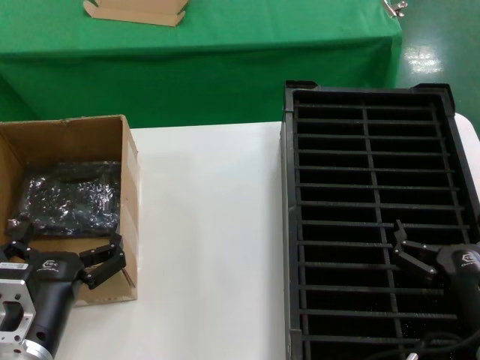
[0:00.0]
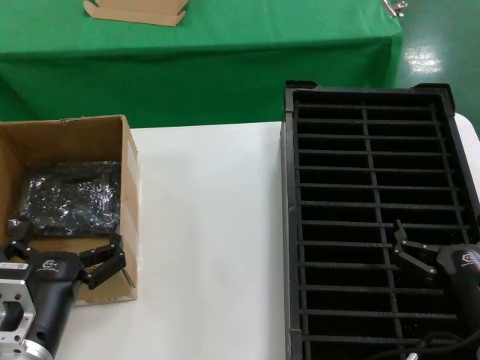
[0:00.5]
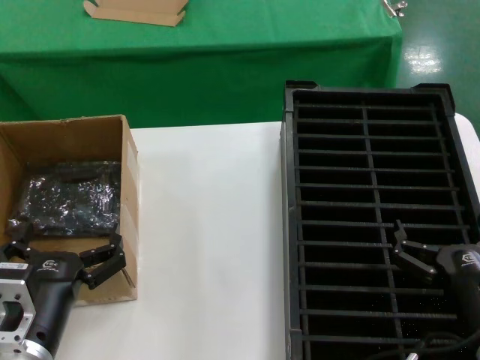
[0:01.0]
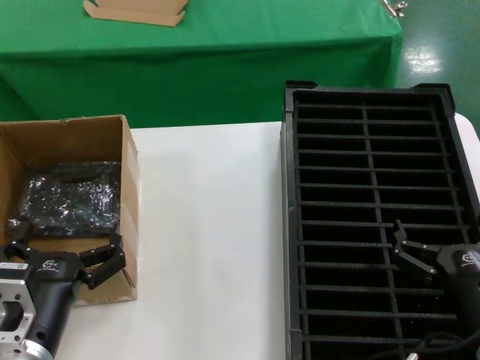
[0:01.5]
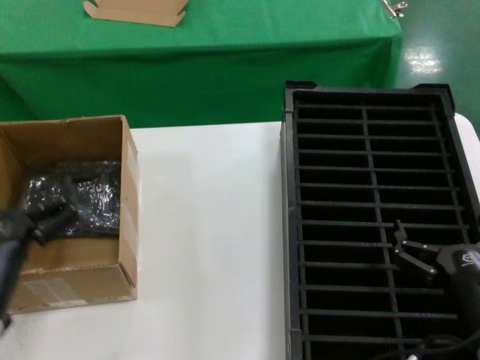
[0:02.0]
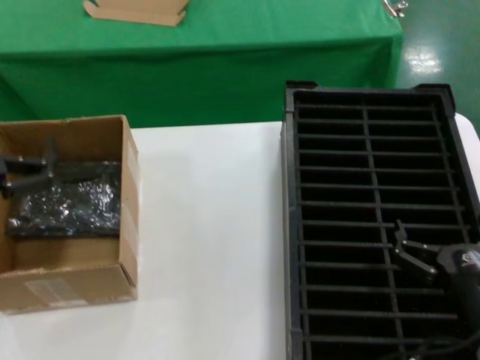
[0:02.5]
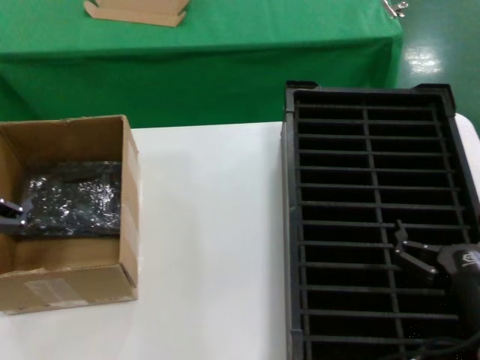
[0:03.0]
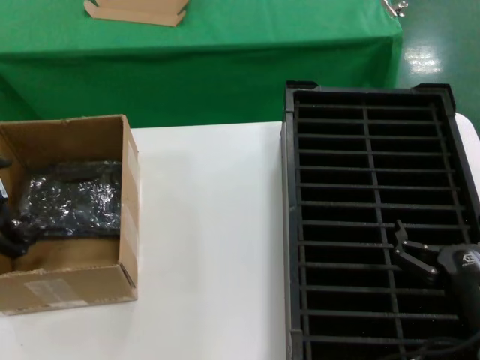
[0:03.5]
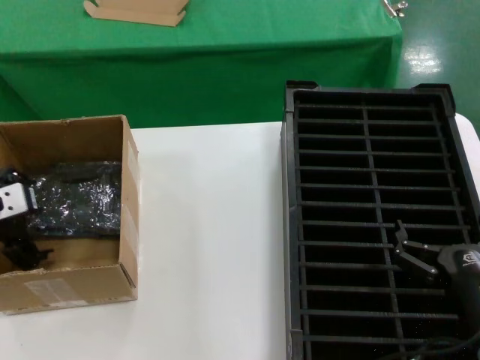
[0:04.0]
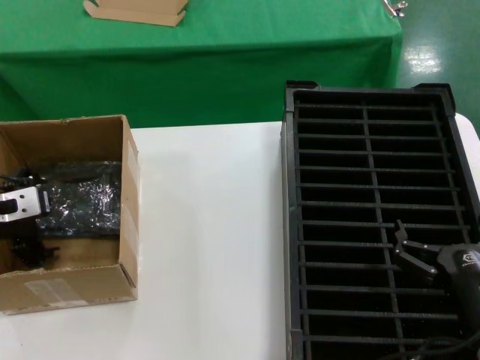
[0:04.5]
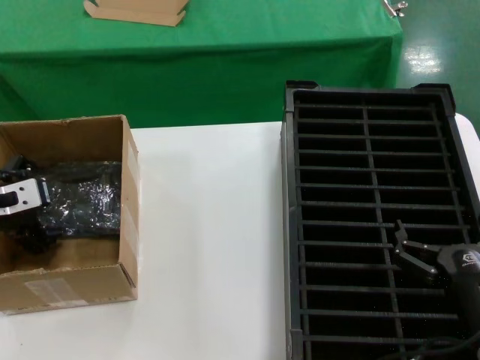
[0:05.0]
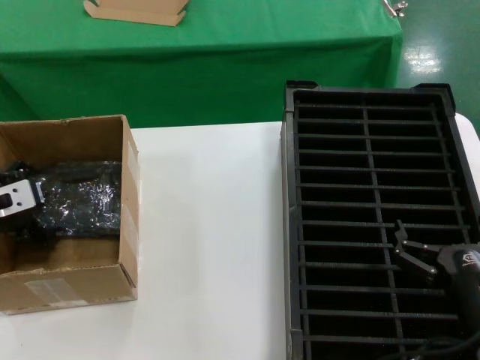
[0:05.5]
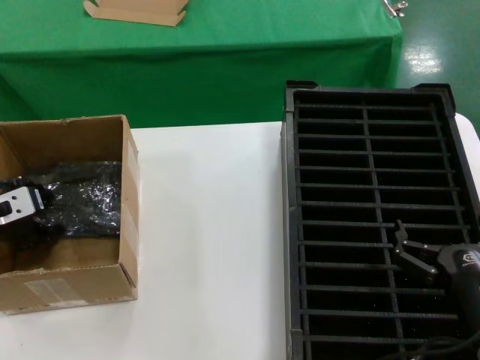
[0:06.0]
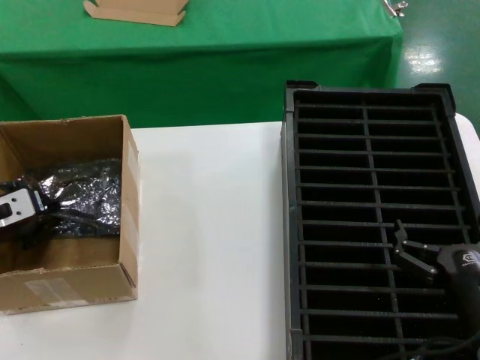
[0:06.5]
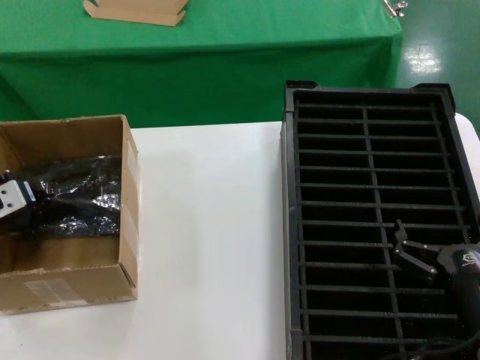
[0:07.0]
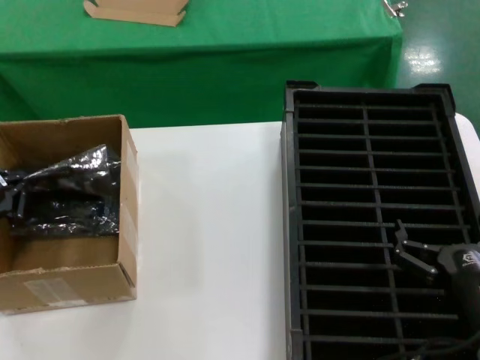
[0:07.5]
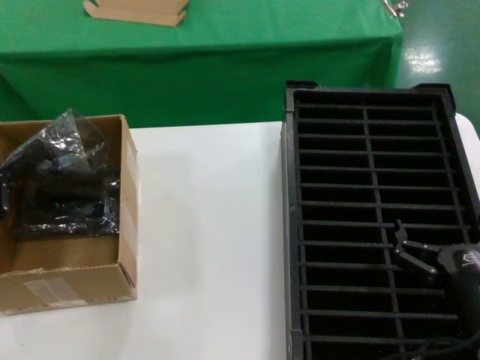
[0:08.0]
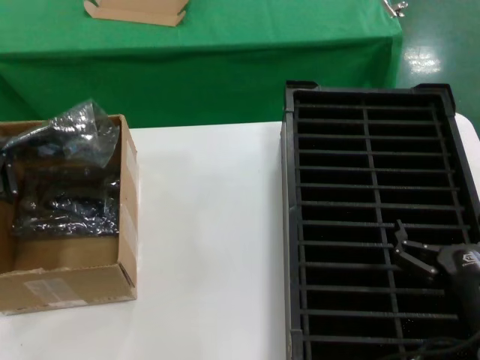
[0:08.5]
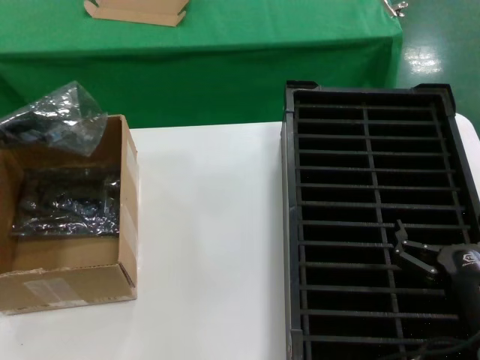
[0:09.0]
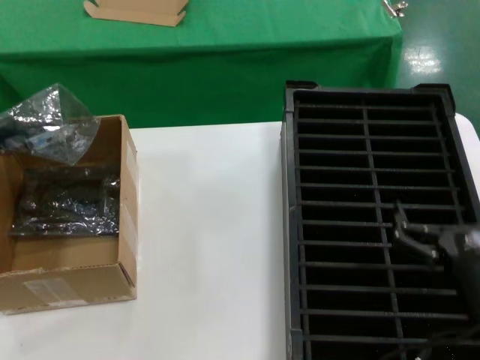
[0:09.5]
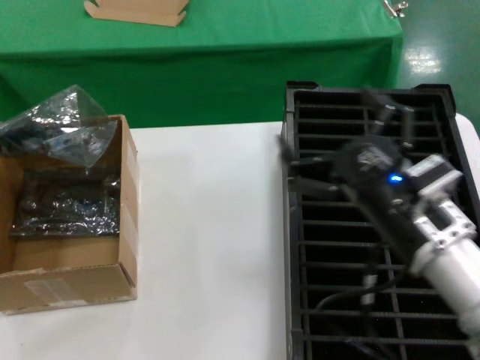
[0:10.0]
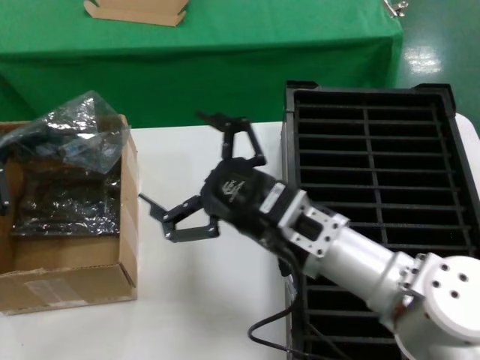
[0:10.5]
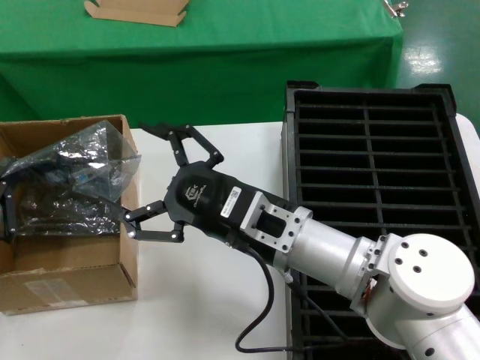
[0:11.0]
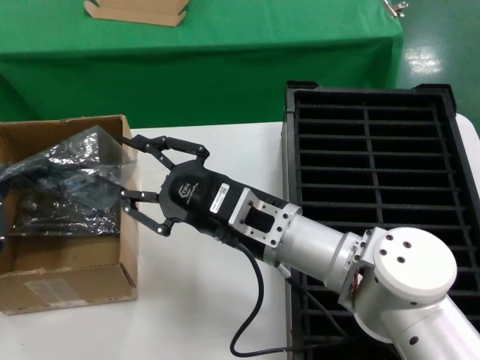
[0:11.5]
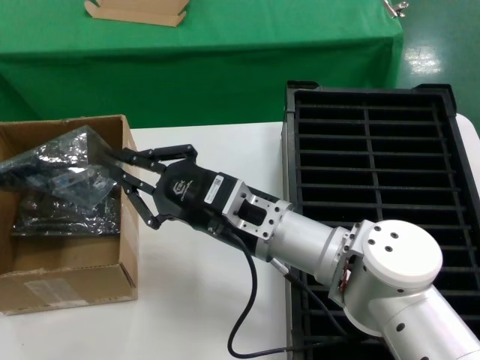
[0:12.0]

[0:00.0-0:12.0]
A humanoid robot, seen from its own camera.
Task of the whole recording: take out graphics card from box remove packaging put into black container.
Step, 0:00.0 to 0:06.5: Grasp the bag.
Step, 0:07.0 to 0:10.0: Lift the bag.
0:00.0 to 0:02.0: The left hand changes place by roughly 5 cm.
0:02.0 to 0:04.0: The left hand travels forward, to the left and upward by about 25 cm.
0:04.0 to 0:06.0: There are only small adjustments of the hands.
0:06.0 to 0:08.0: The left hand travels backward by roughly 10 cm.
0:08.0 to 0:10.0: The right hand is displaced upward, to the left and forward by approximately 15 cm. Meanwhile the left hand goes roughly 10 cm backward.
0:10.0 to 0:12.0: The right hand goes about 15 cm to the left and forward.

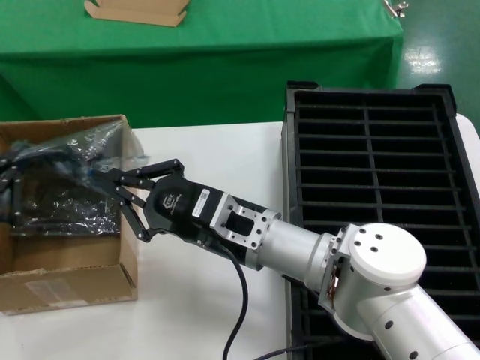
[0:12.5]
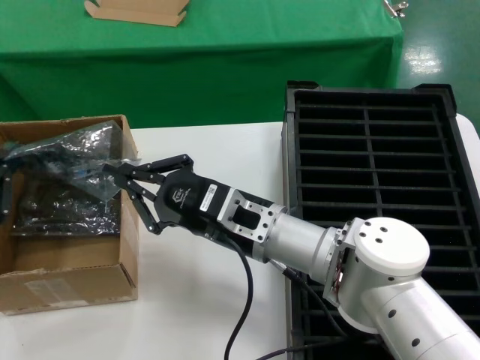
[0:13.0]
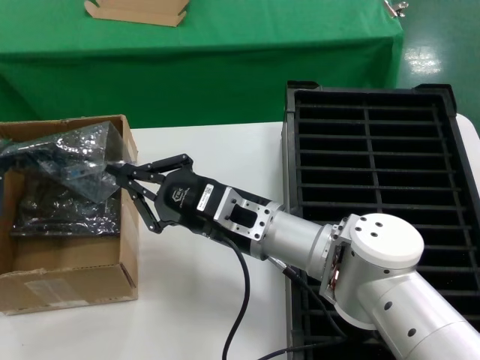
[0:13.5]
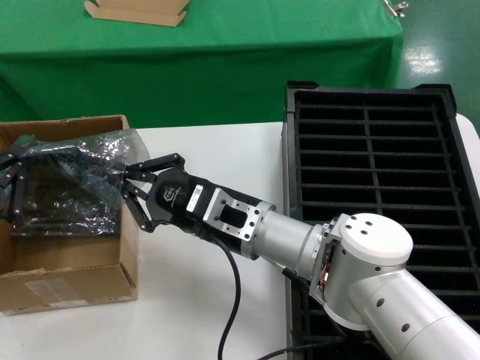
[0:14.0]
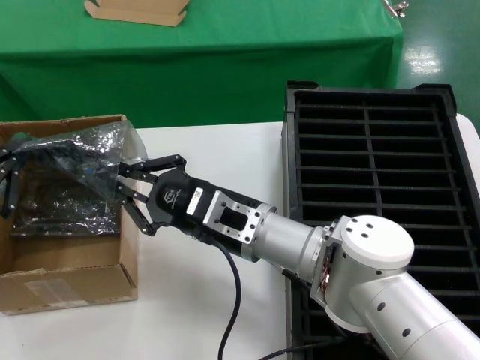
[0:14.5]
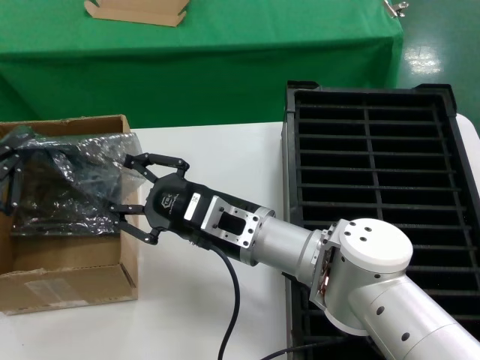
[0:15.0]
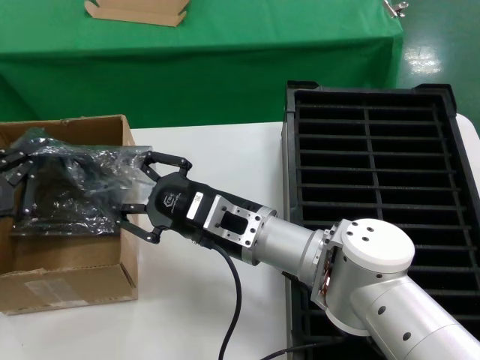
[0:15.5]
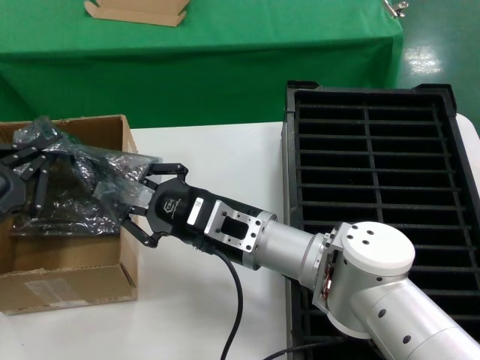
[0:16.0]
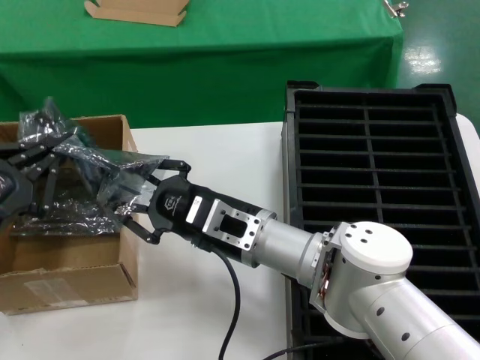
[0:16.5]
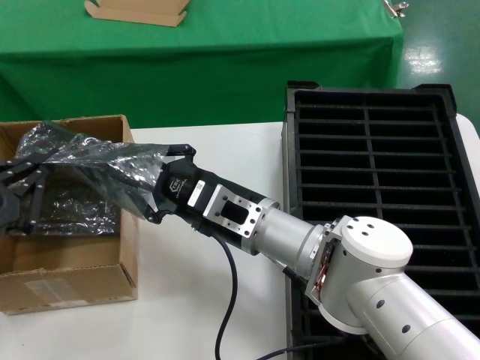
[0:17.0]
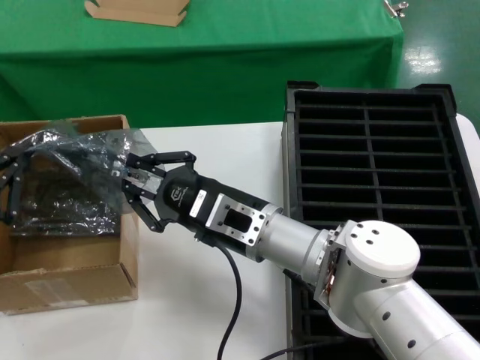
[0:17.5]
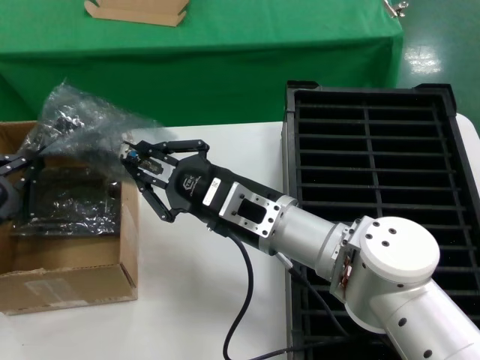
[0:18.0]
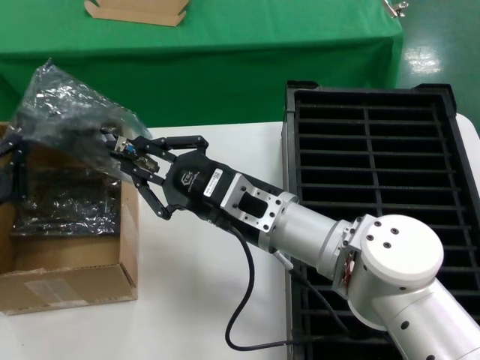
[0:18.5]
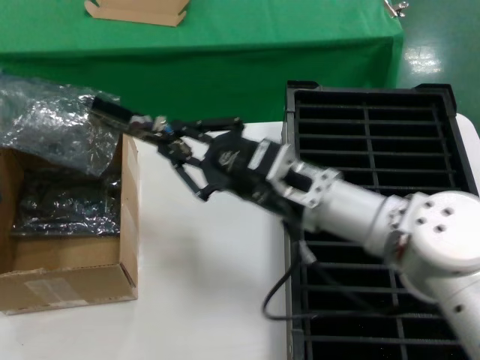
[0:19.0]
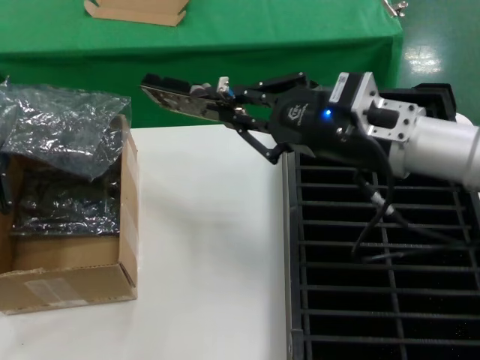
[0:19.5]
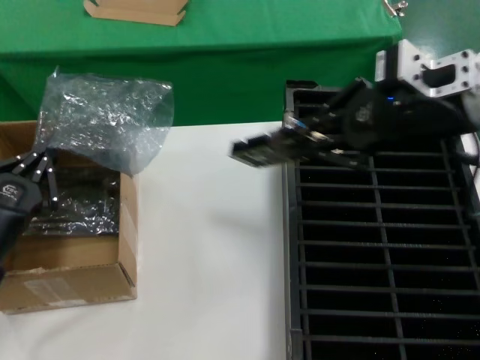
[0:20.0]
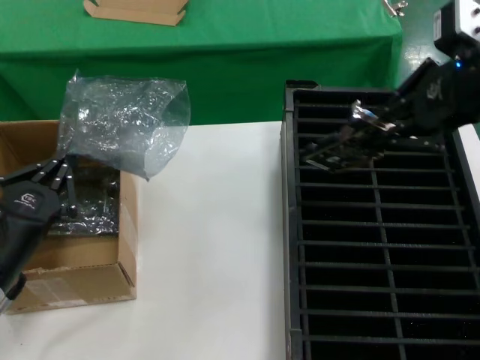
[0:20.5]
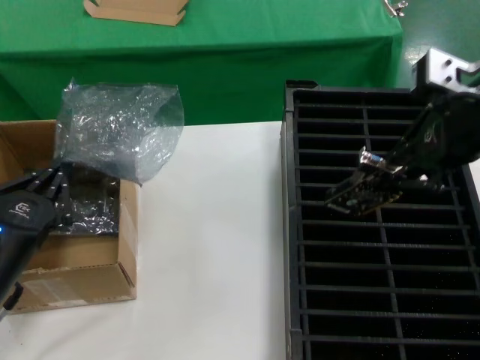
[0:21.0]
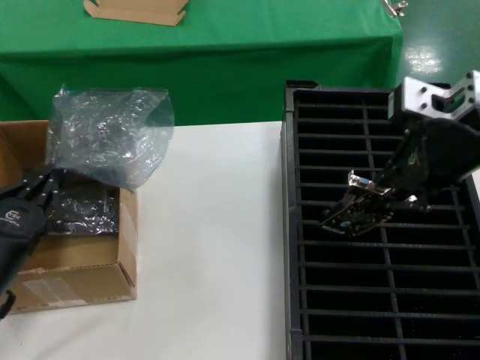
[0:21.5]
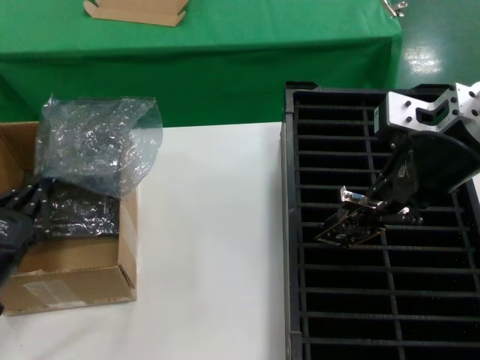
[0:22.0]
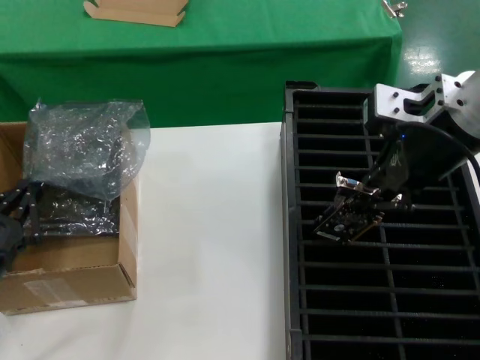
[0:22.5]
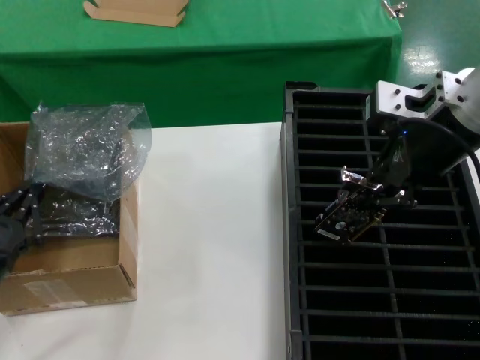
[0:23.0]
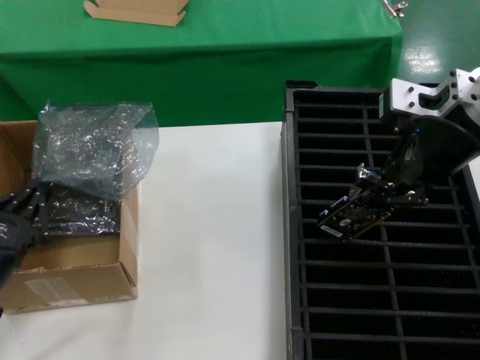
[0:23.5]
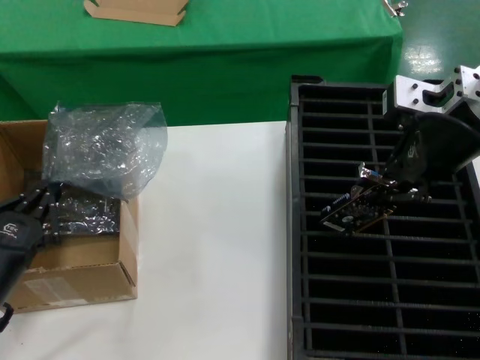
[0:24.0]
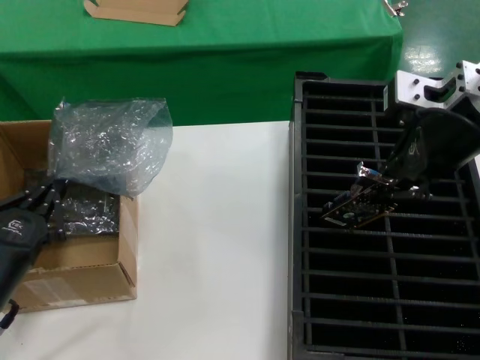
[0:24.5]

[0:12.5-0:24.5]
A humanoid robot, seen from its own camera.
Task of the whole recording: take out graphics card from box remove packaging put into black container.
Step, 0:12.5 to 0:19.0: Take out the hard disk of the bag.
0:12.5 to 0:16.5: The hands move only a little.
0:16.5 to 0:18.5: The left hand shifts by roughly 5 cm.
0:18.5 to 0:20.5: The left hand travels downward by approximately 10 cm. The right hand goes some 35 cm upward and to the right.
0:20.5 to 0:22.5: The left hand shifts by approximately 5 cm. The right hand moves downward and to the left, about 10 cm.
0:22.5 to 0:24.5: There are only small adjustments of the hands.

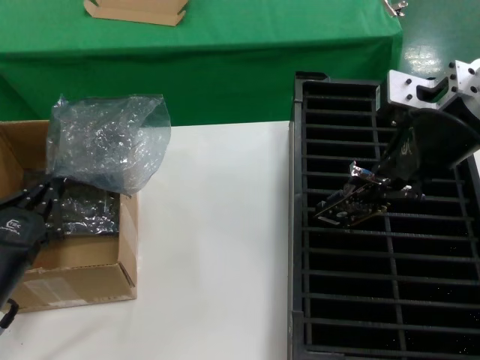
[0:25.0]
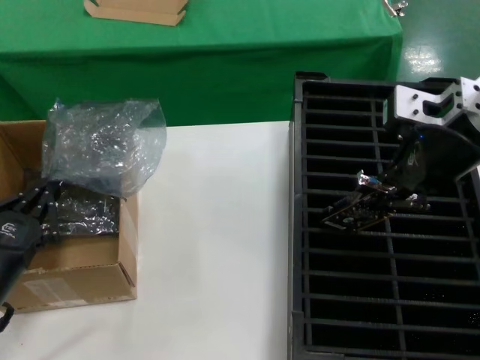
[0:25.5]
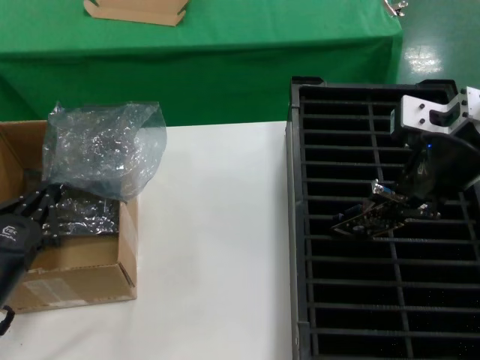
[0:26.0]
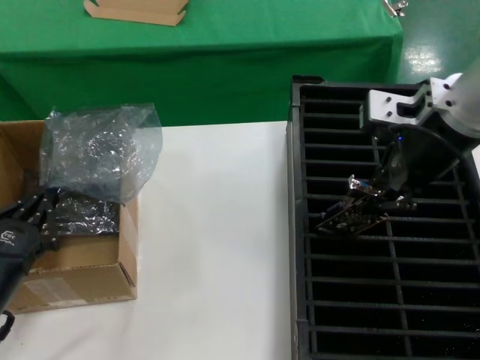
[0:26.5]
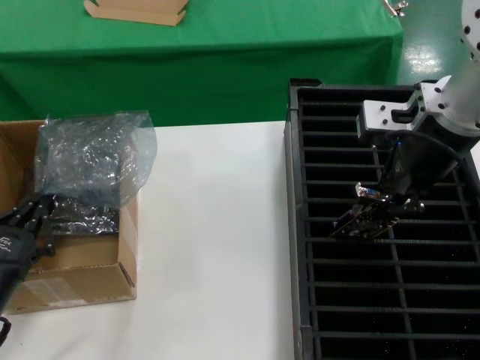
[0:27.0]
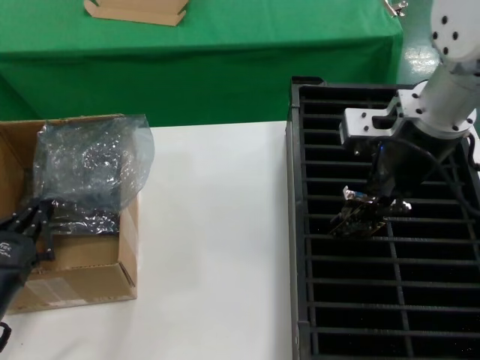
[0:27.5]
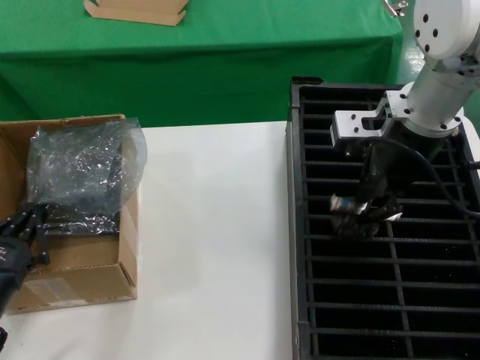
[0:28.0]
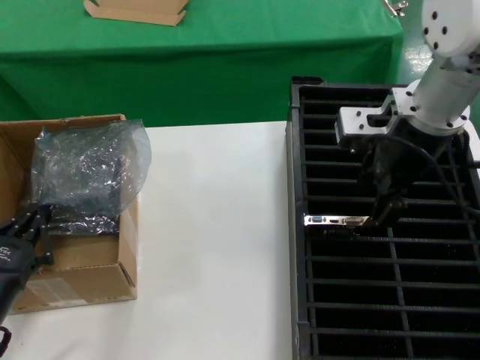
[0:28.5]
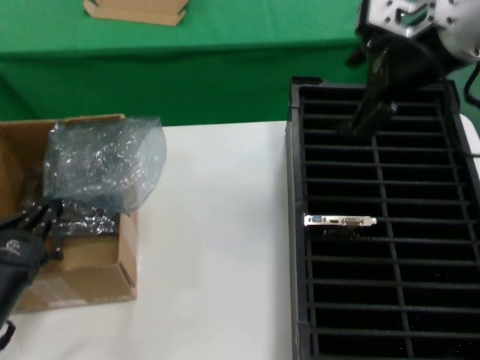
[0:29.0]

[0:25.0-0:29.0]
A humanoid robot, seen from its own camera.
Task of the whole recording: take out graphics card from box remove packaging put into black container.
Step, 0:25.0 to 0:28.0: Place the hard disk in the hard disk enclosure.
0:25.0 to 0:27.0: The hands move only a little.
0:27.0 to 0:29.0: The right hand is displaced upward by about 5 cm.
